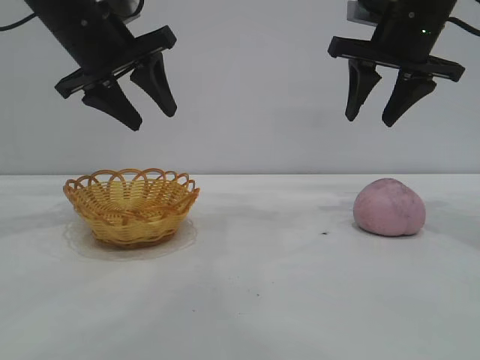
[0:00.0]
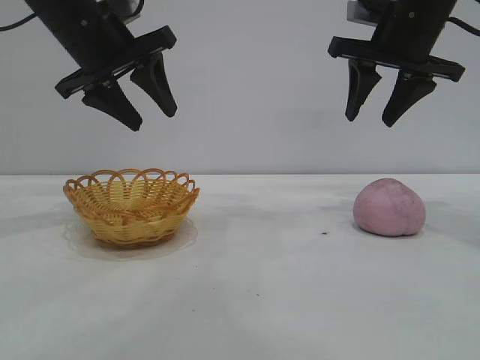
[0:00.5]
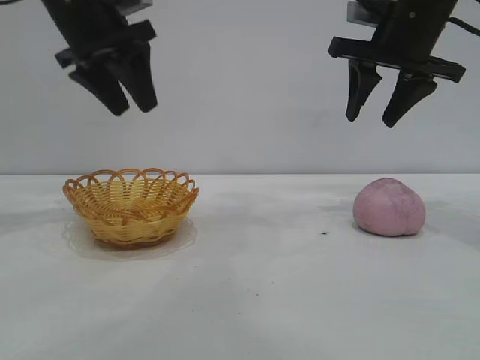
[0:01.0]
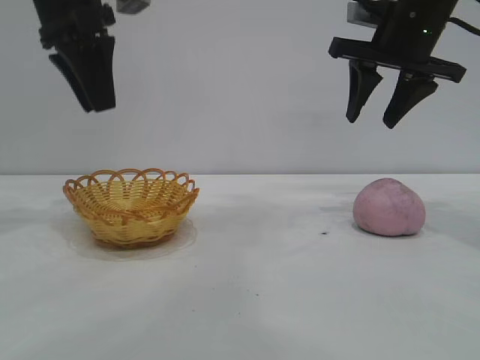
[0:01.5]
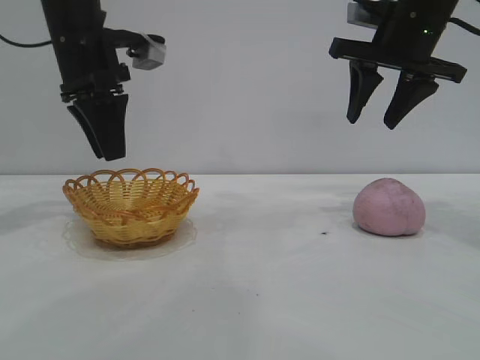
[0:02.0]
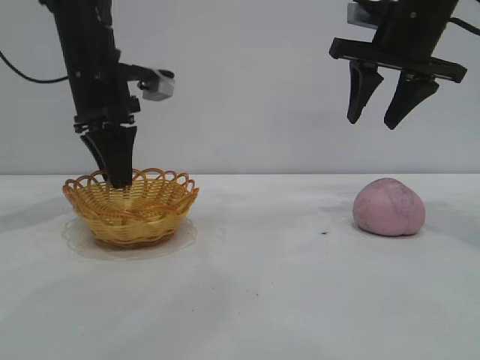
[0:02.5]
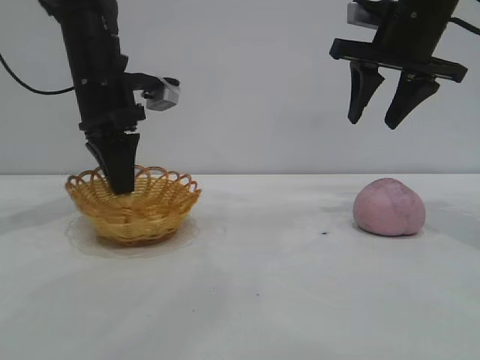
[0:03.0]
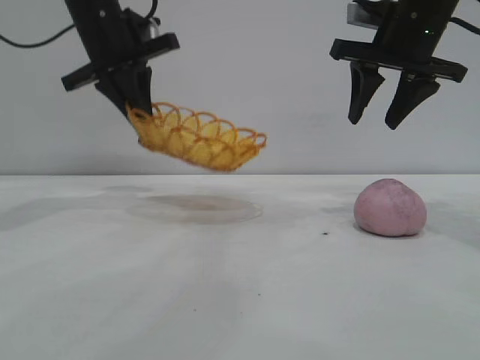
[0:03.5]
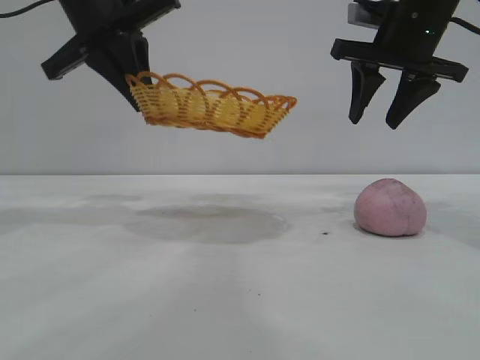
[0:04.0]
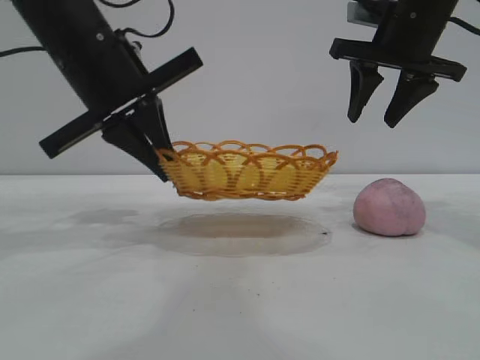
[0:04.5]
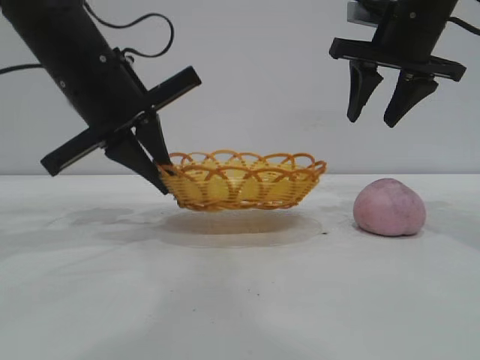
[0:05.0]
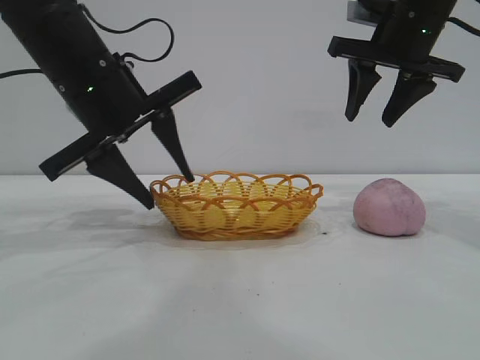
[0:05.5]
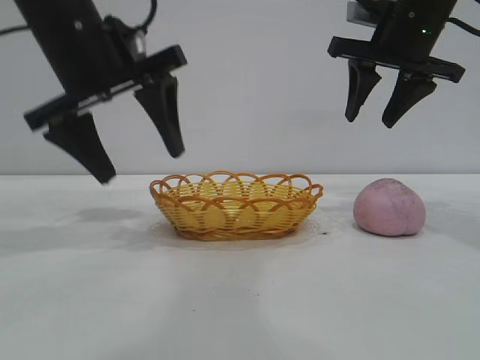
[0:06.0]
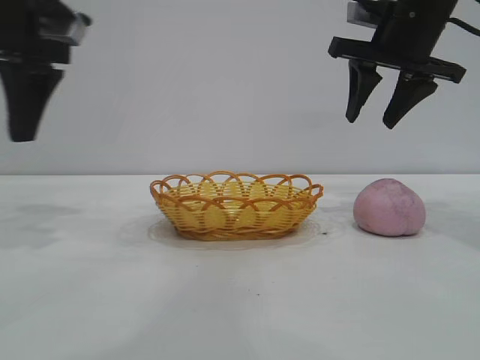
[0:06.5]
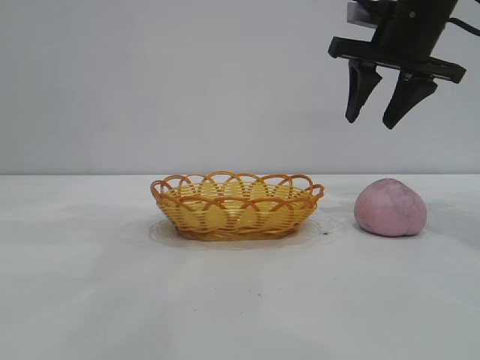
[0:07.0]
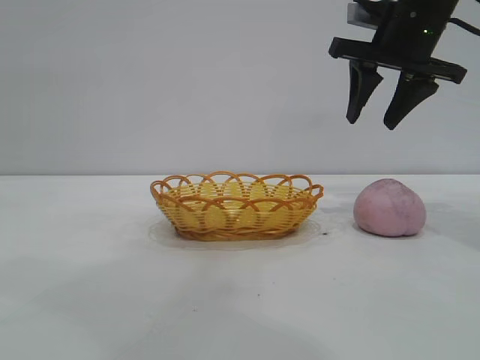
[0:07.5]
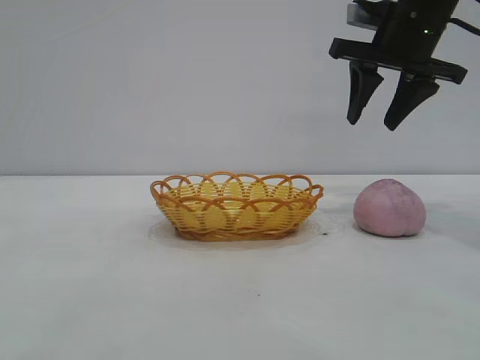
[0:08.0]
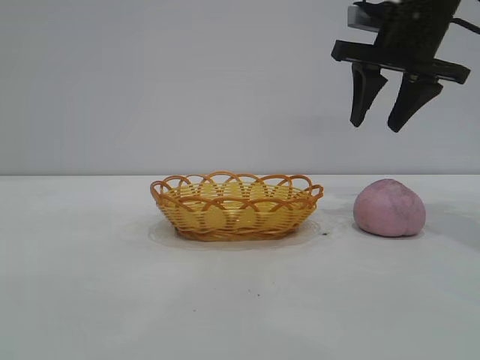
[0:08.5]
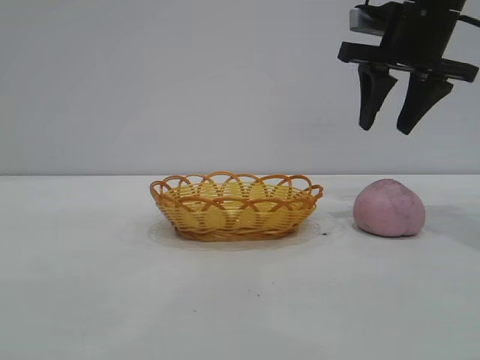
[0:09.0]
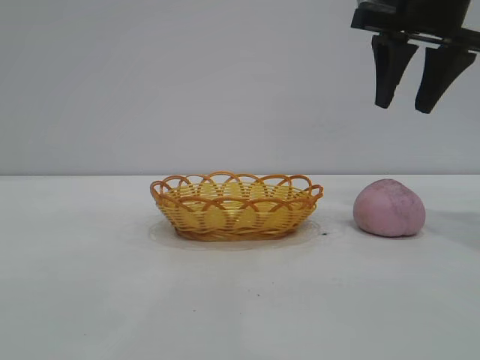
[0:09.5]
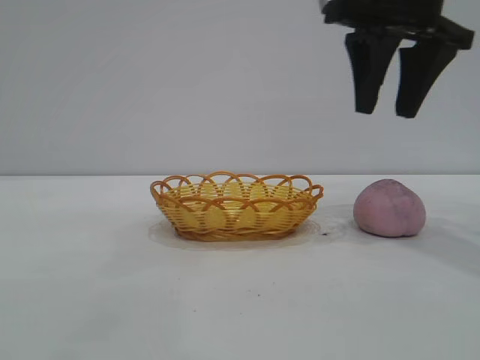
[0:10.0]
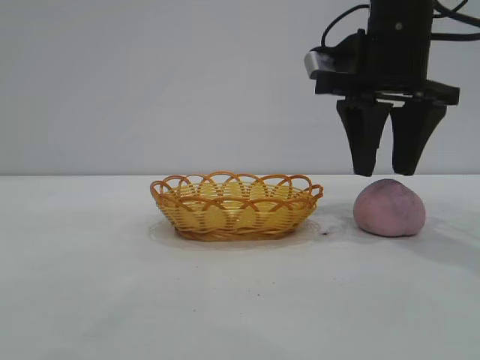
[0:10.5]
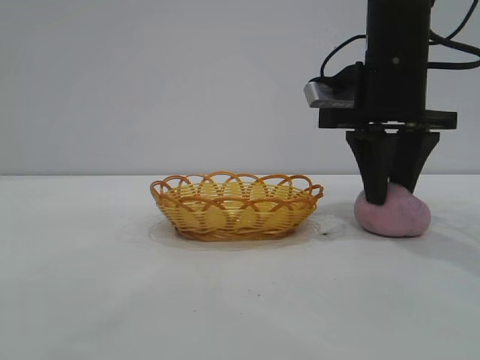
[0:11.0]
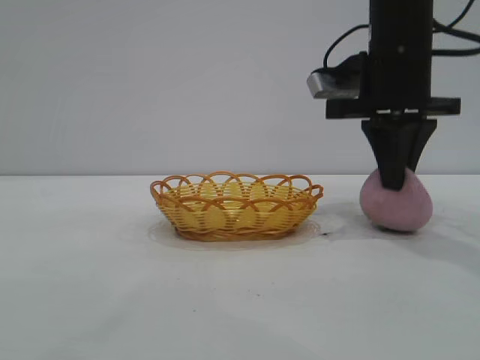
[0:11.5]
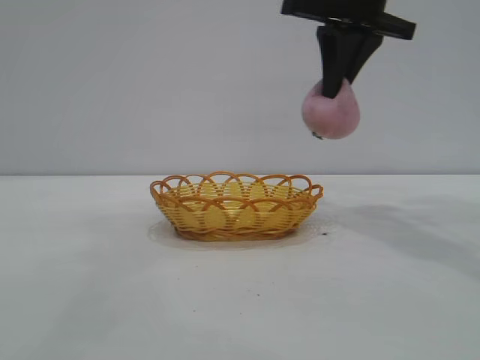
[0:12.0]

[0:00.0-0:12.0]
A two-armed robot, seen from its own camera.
Task of the whole recording: pick up the peach and put it into the basket.
Step, 0:00.0 to 0:06.0: Move the basket to the center of view.
Step, 0:06.5 to 0:11.5: Pick up the peach.

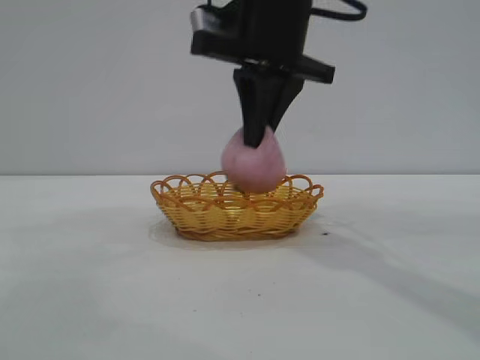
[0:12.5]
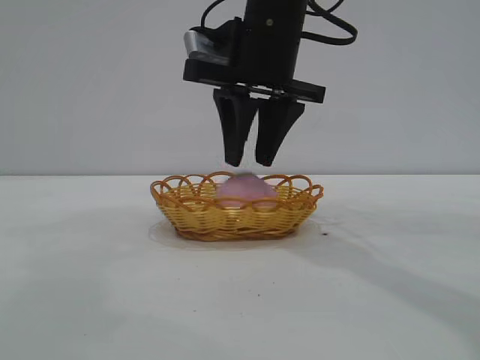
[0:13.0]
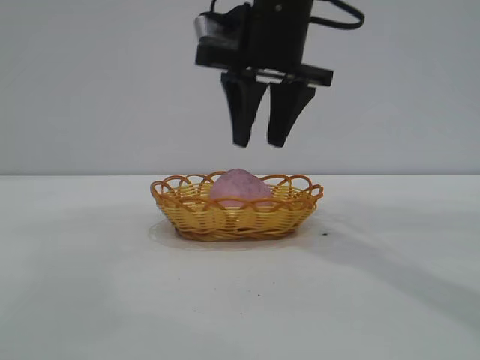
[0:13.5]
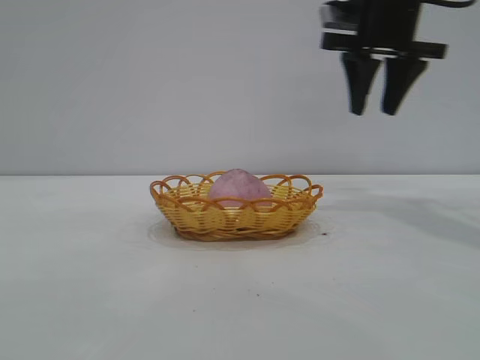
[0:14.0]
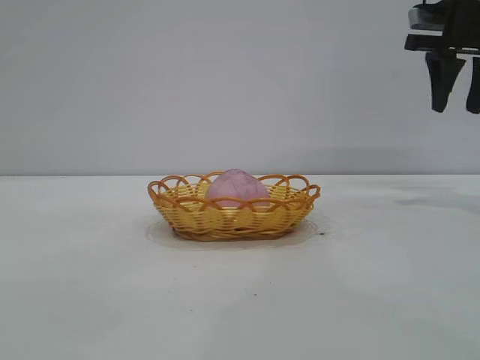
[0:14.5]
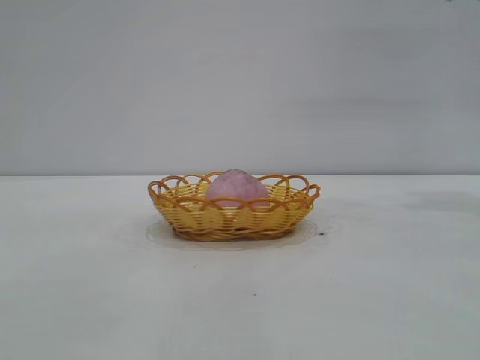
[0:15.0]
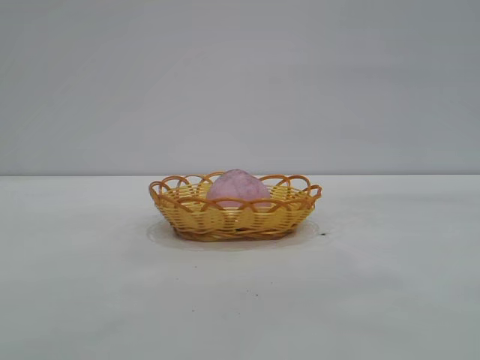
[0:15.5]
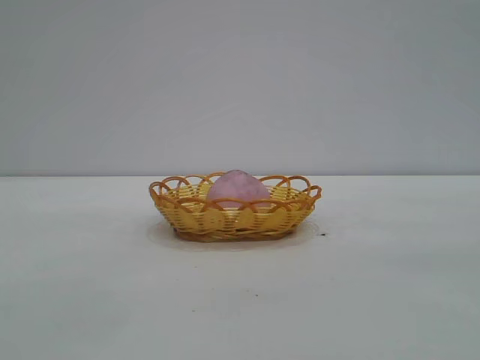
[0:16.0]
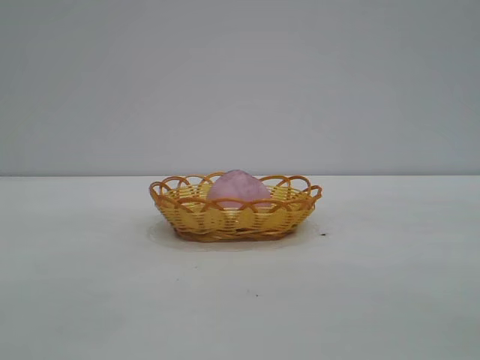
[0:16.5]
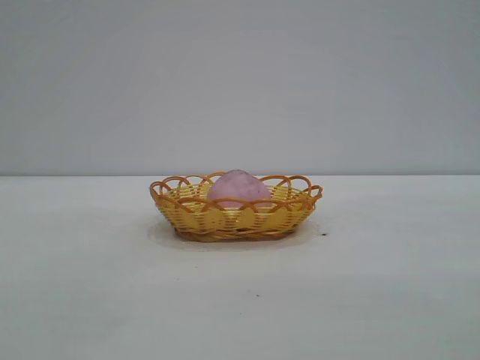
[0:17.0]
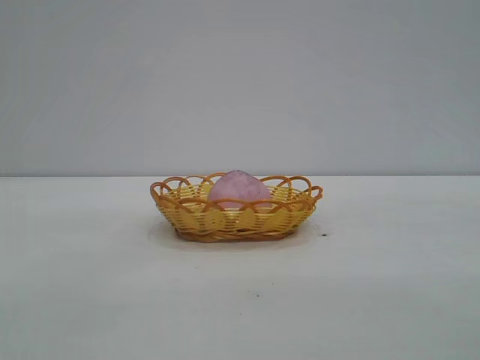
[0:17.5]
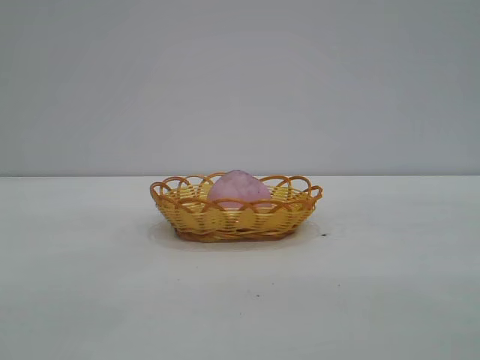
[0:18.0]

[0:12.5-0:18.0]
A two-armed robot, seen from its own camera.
Task of the whole recording: pick up the peach and put it into the basket.
Step, 0:12.5 to 0:13.5: place the peach into the basket.
